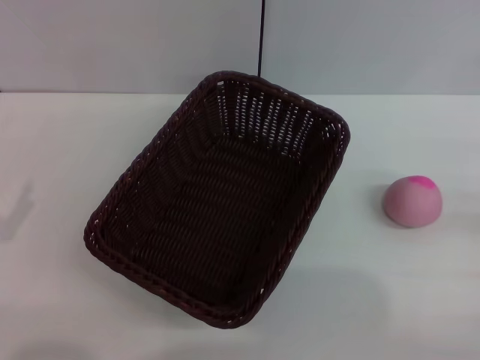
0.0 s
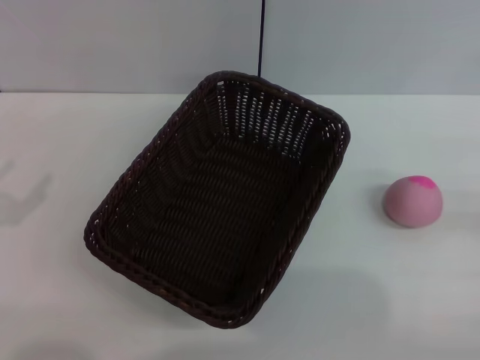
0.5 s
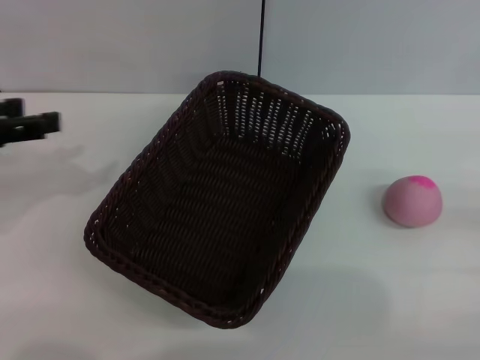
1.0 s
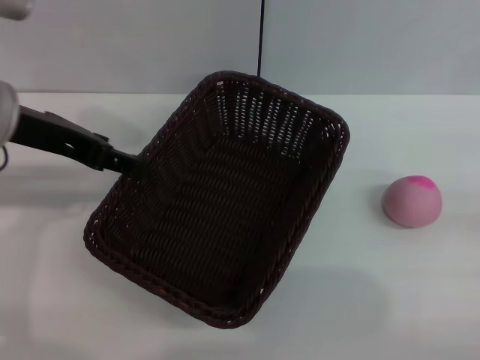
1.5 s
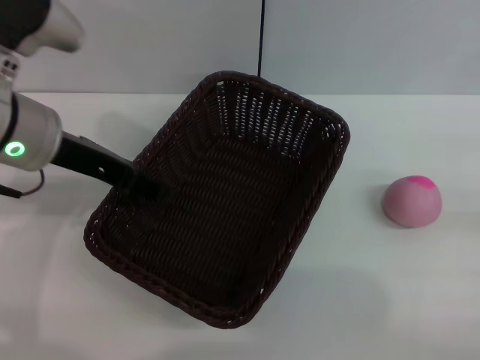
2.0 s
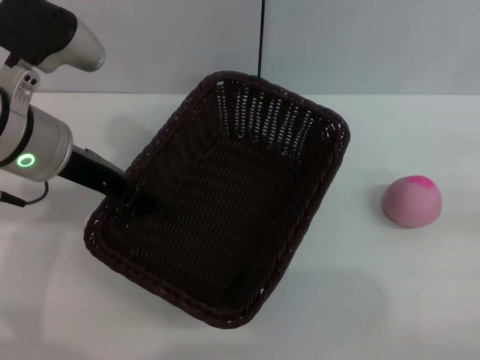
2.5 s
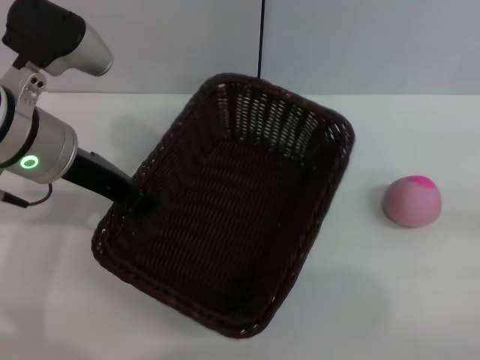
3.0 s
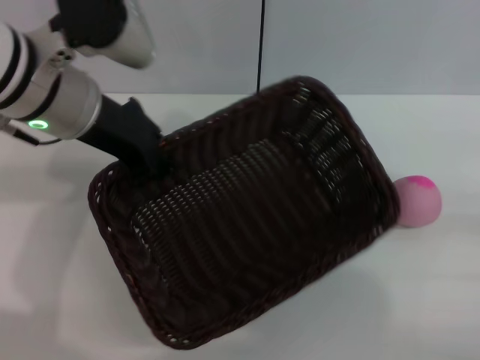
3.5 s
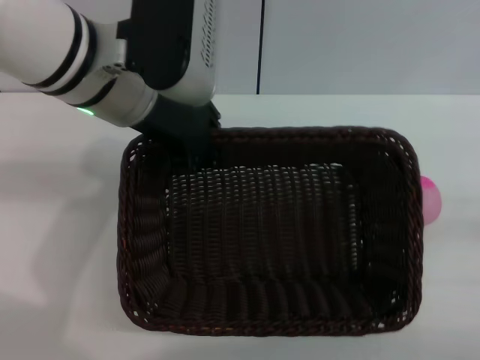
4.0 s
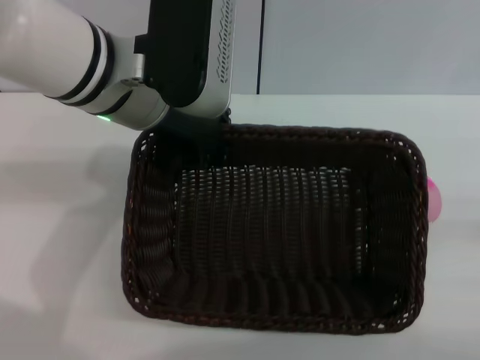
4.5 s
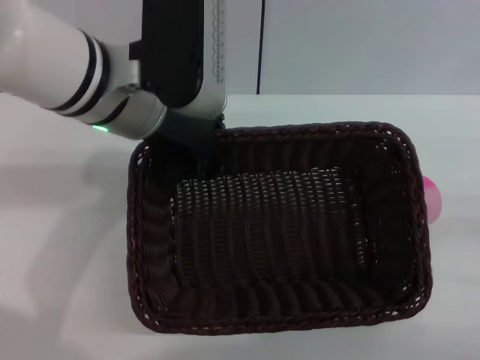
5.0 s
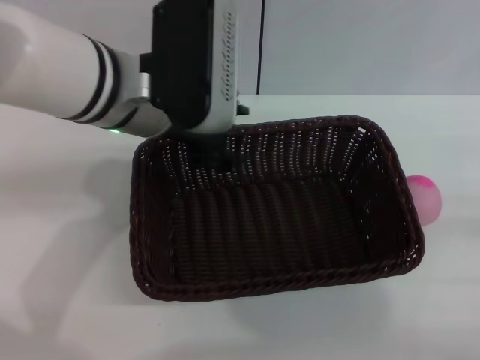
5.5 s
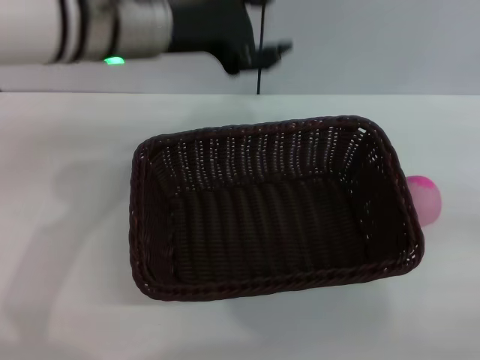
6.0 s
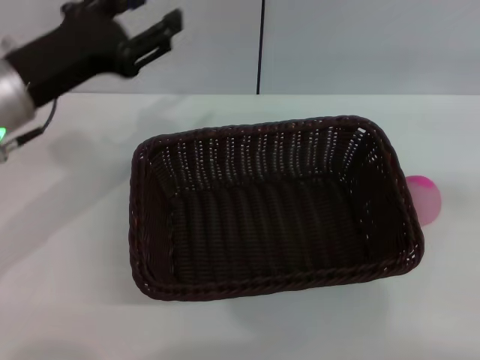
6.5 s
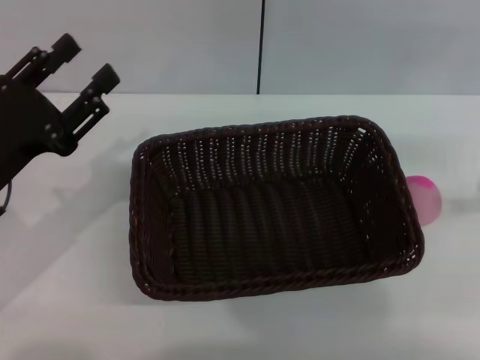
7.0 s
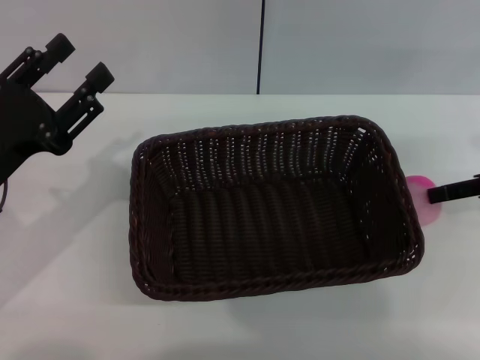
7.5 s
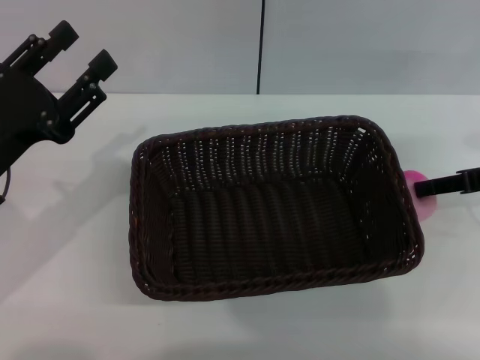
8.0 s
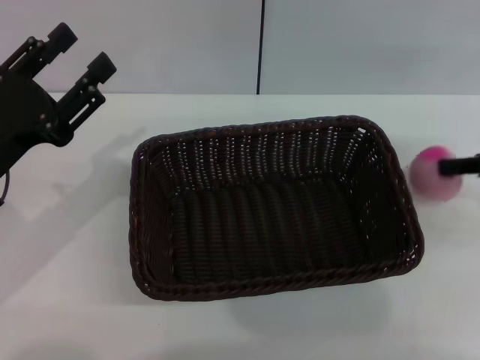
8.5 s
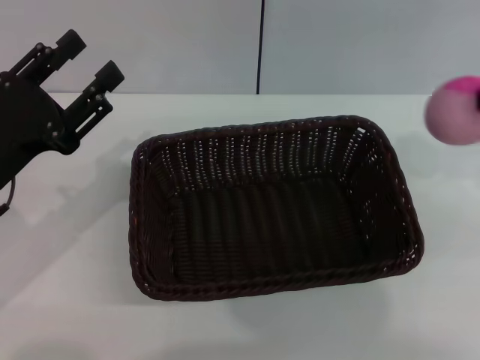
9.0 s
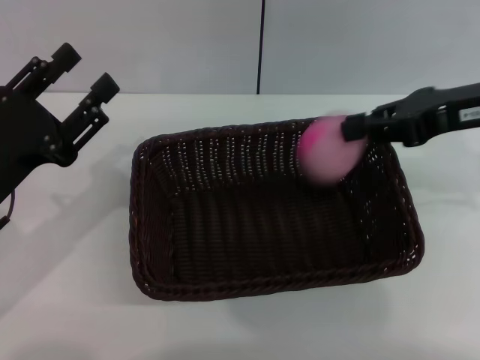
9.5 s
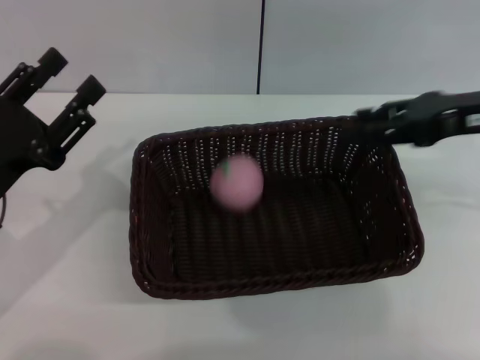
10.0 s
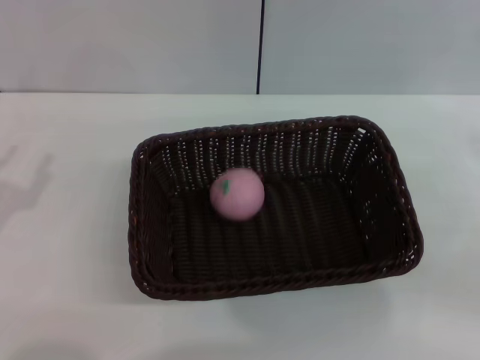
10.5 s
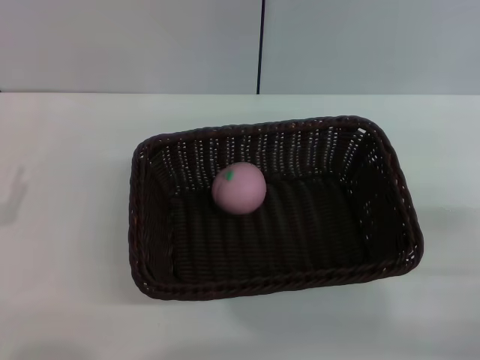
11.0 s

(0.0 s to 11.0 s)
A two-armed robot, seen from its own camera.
Step, 0.0 s - 3.0 s: Pick up the dark basket with the left gripper.
Step, 3.5 s - 5.5 s: Place the dark basket in the center of view with the right gripper.
Step, 6.0 s - 9.0 s: Pick up the peach with the left gripper.
Step, 9.5 s - 10.0 s: Place the peach into the basket with the left gripper.
0.0 s - 2.0 s: The left gripper travels to the right, forward and upward by some 25 cm.
2.0 s - 3.5 s: The left gripper changes place by roughly 5 cm, and closes up.
3.5 s - 5.5 s: The left gripper shifts about 5 cm to the right, and opens up.
5.5 s - 7.5 s: The left gripper is displaced to the left, backward and downward by about 20 cm; the right gripper goes some 20 cm forward and upward.
7.5 s - 9.0 s: The right gripper is displaced upward by roughly 10 cm, and closes.
9.0 s - 11.0 s: The right gripper travels downward and backward by some 20 cm, and opens up. Meanwhile the left gripper shifts about 10 cm to the left, downward and backward.
